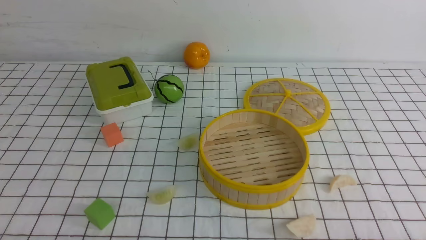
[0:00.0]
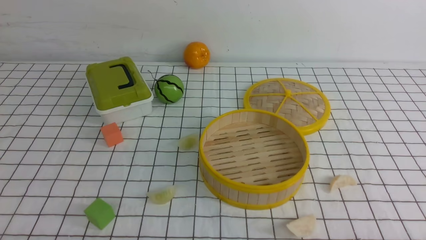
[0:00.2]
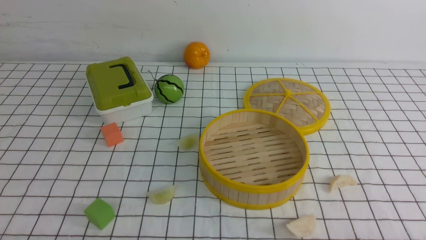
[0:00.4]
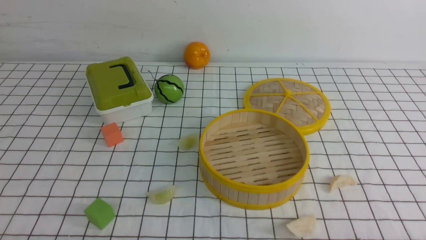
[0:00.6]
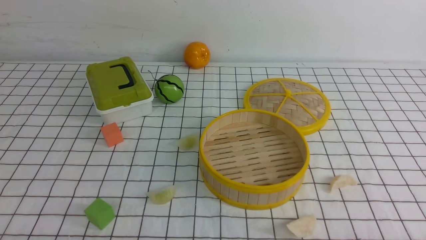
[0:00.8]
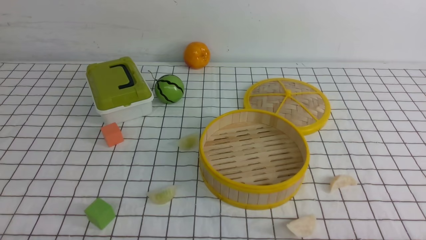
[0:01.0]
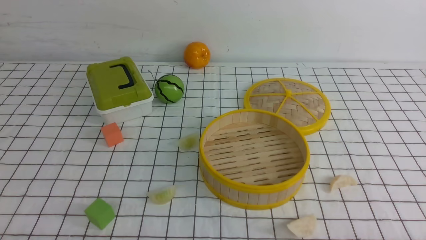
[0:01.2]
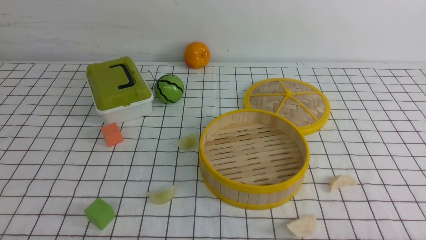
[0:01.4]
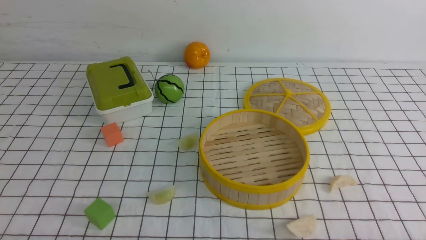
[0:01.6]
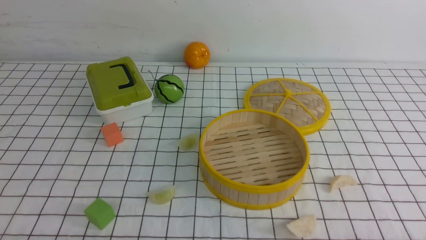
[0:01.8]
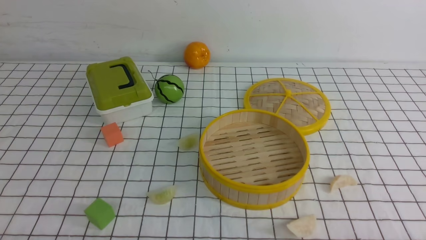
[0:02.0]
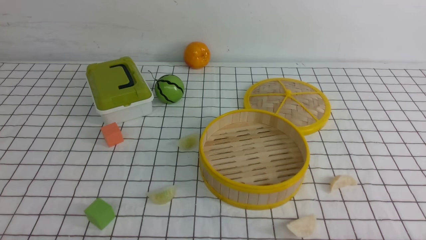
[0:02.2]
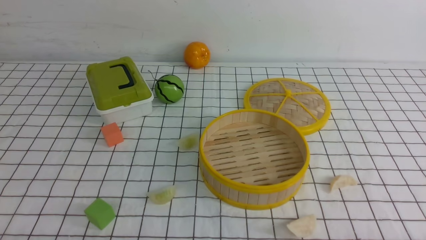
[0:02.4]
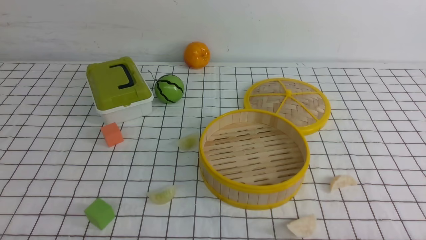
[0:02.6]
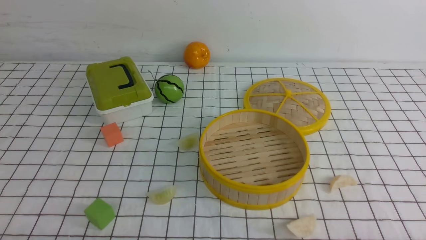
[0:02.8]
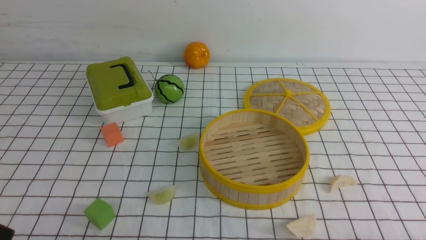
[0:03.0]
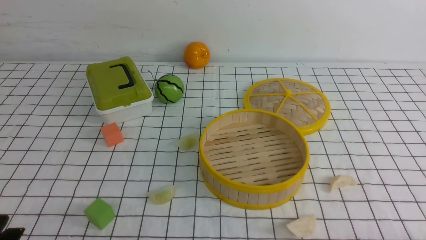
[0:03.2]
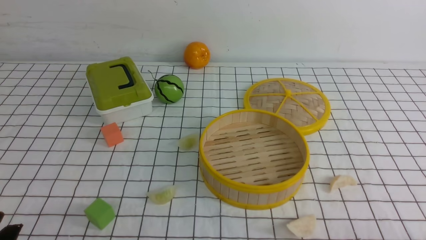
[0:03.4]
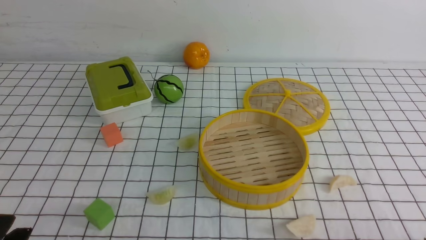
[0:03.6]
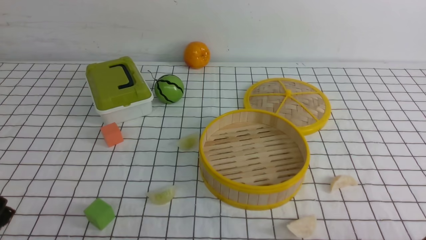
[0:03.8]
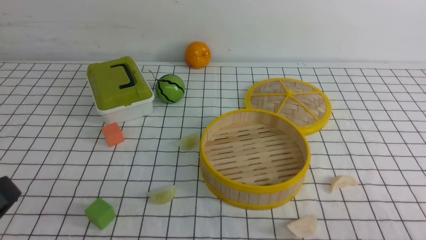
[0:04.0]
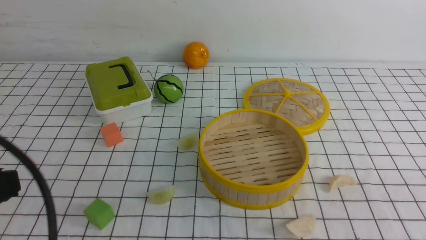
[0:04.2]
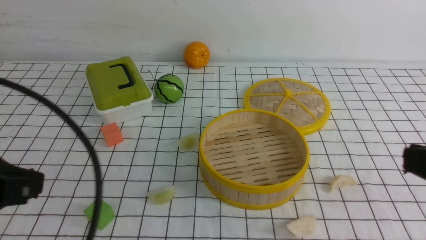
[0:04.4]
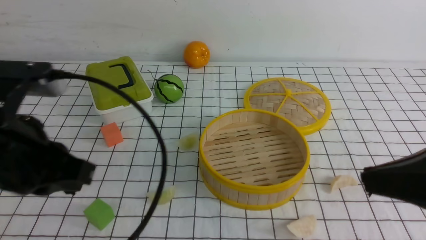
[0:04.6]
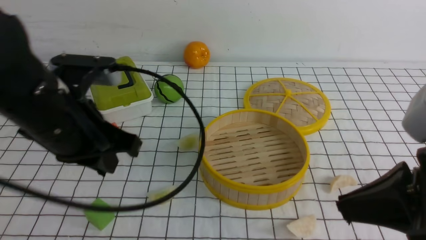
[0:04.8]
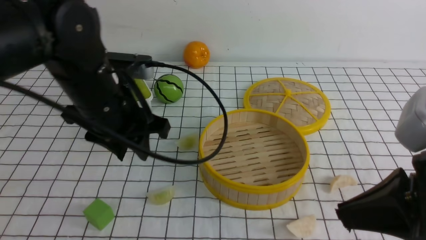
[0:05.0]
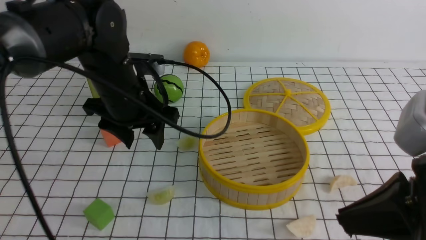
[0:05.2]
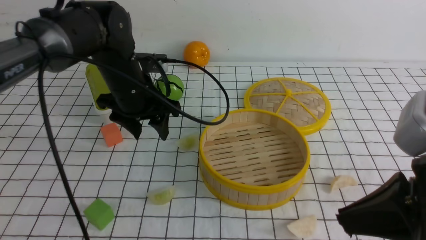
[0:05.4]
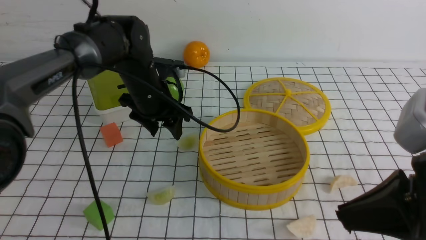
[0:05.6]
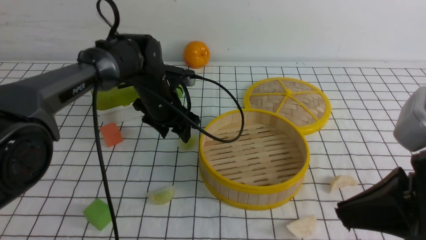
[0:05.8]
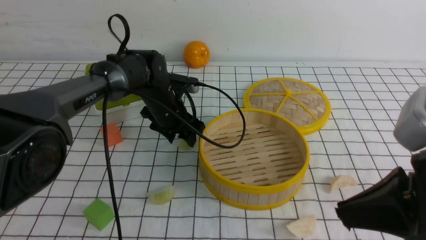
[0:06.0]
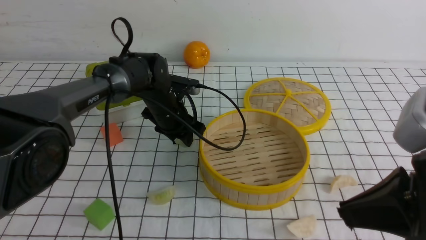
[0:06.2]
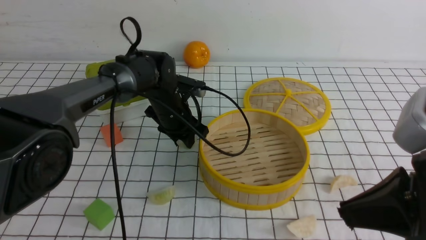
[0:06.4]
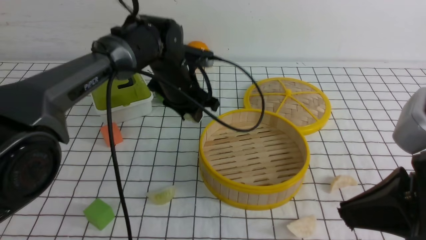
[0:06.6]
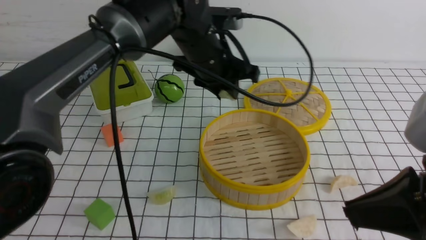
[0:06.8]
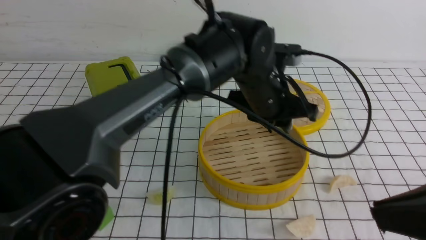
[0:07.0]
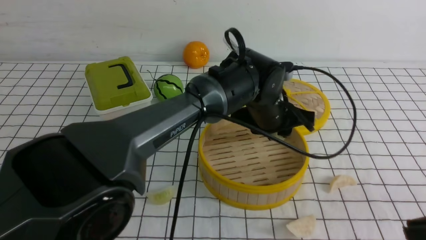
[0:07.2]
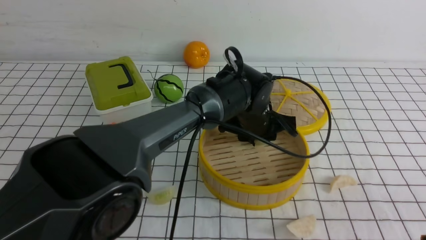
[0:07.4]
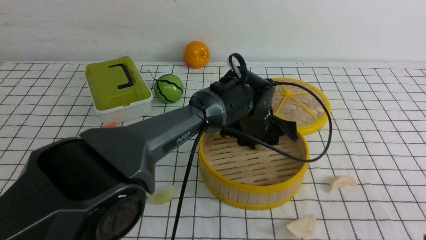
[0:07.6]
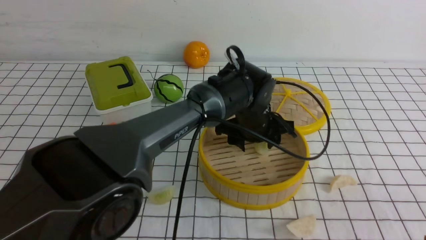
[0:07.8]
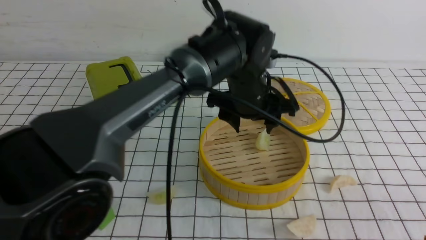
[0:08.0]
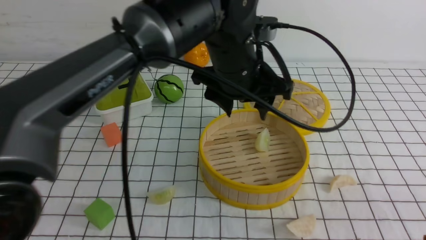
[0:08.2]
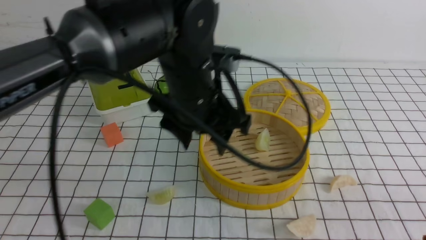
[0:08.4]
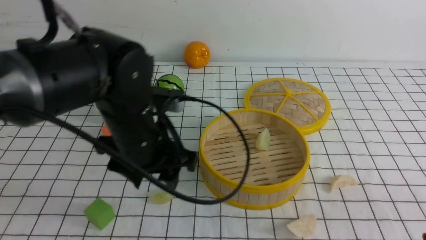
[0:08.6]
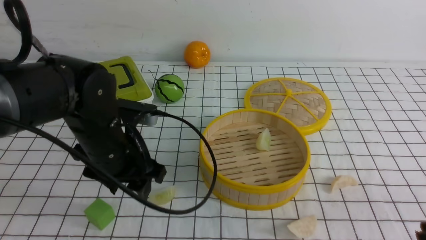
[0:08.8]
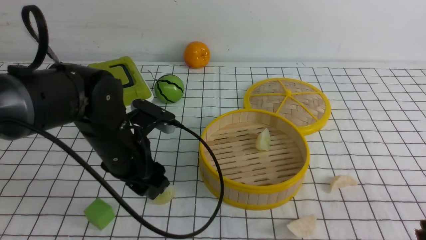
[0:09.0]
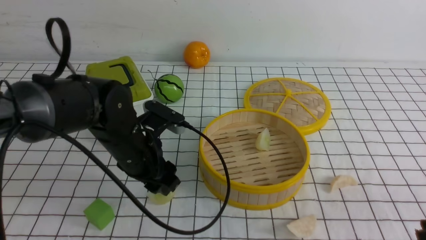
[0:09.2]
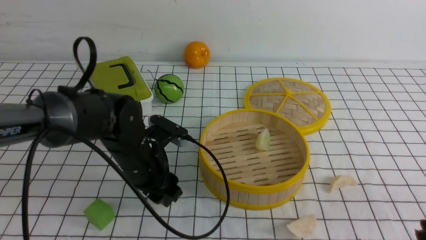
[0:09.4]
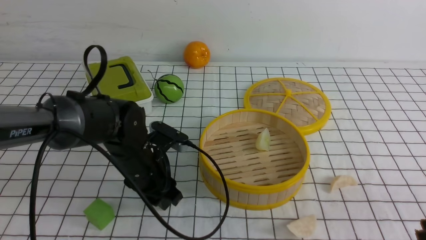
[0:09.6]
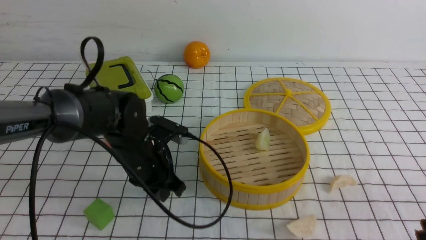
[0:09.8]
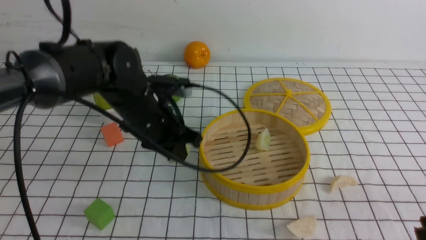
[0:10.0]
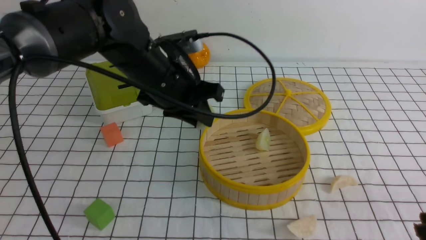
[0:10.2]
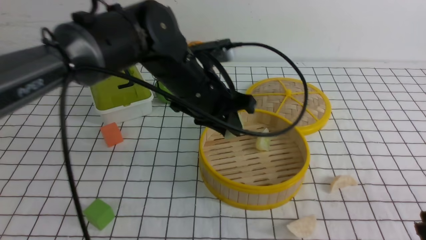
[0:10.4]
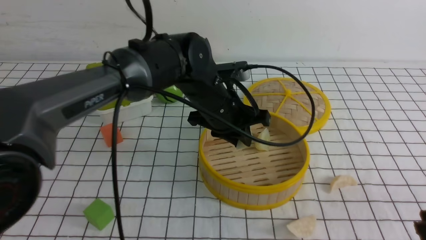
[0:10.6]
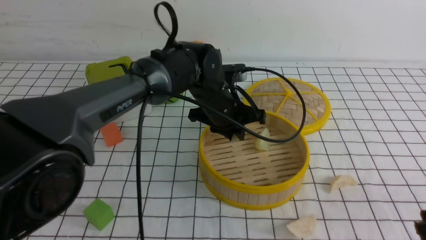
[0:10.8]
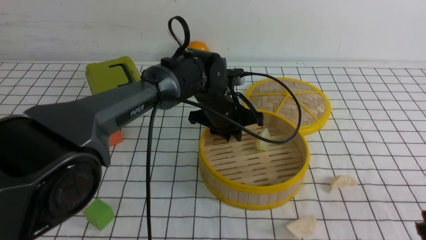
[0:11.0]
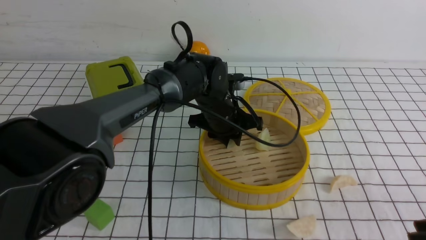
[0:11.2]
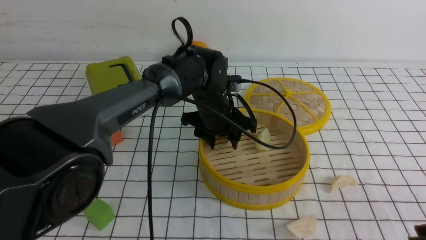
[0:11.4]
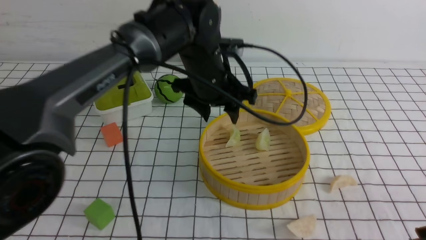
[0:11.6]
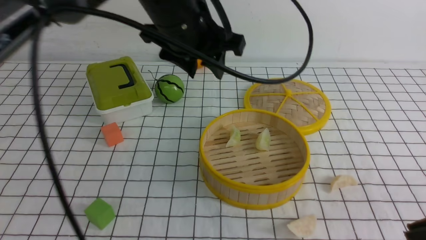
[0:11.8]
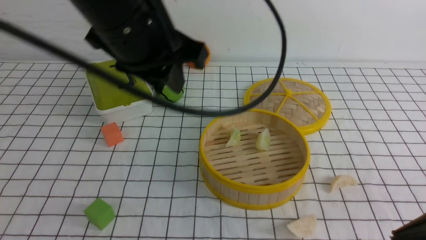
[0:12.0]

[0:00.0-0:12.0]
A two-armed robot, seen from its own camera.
Task of the whole recording: put the dumplings into the steamer on the table with the white tablecloth.
Step, 0:00.0 to 0:06.8: use the left arm to grab a dumpling.
Step, 0:07.0 to 0:08.2: use the left arm to put the dumpling into the steamer.
Step, 0:08.4 to 0:10.0: use the left arm to grab a dumpling.
Step, 0:10.2 to 0:11.6: use the left arm to put the dumpling into the steamer.
0:00.0 to 0:01.6: Neither gripper changes place.
0:03.0 to 0:04.4: The left gripper heads upward and forward, covering some 20 cm, and closes up; the right gripper shifts about 20 cm upward, and closes its fingers.
0:04.4 to 0:06.0: The left gripper is displaced forward and downward by approximately 35 cm, and opens up. Meanwhile the right gripper changes place by roughly 5 cm.
0:06.0 to 0:07.6: The right gripper moves backward, some 10 cm, while the left gripper moves to the right, roughly 15 cm.
0:07.6 to 0:09.0: The left gripper is displaced to the left and backward by some 25 cm.
0:09.0 to 0:10.4: The left gripper travels to the right, upward and forward by some 15 cm, and closes up.
0:10.4 to 0:12.0: The left gripper travels upward, backward and to the left by roughly 15 cm, and opens and closes again; the right gripper ends up about 5 cm from where it was.

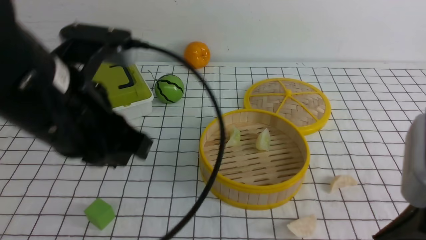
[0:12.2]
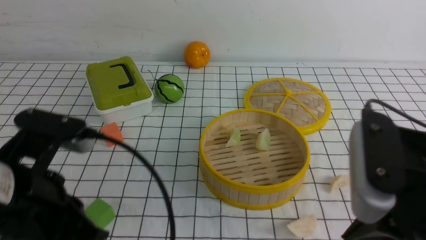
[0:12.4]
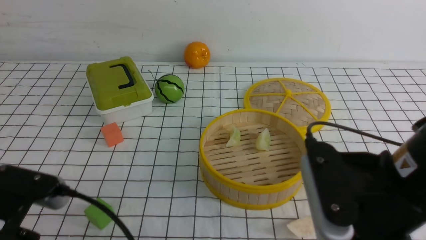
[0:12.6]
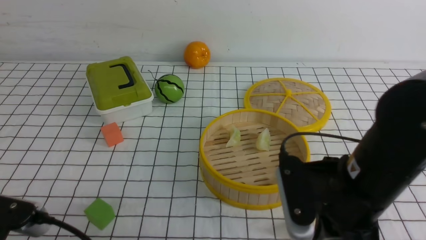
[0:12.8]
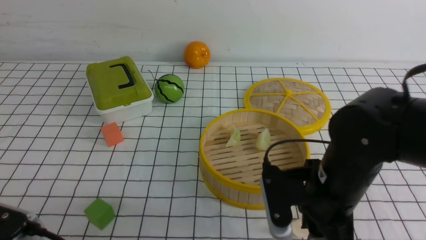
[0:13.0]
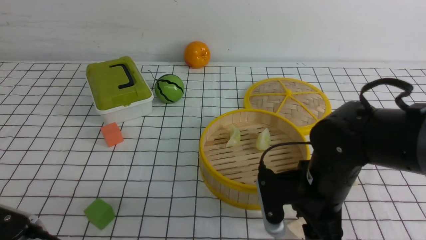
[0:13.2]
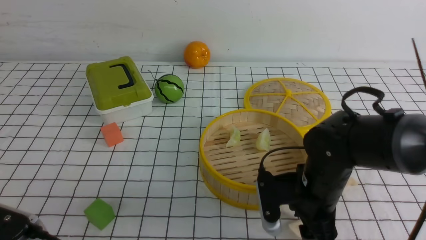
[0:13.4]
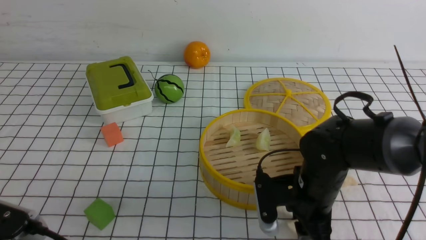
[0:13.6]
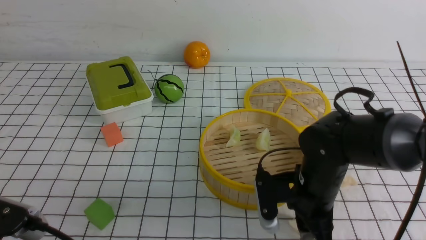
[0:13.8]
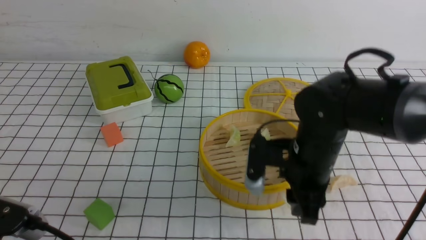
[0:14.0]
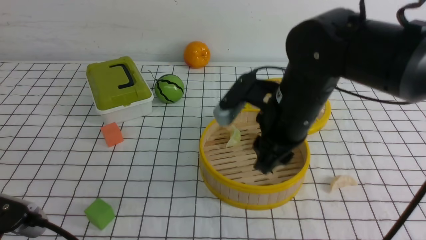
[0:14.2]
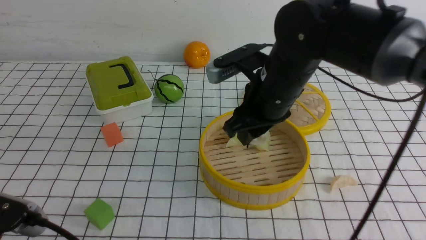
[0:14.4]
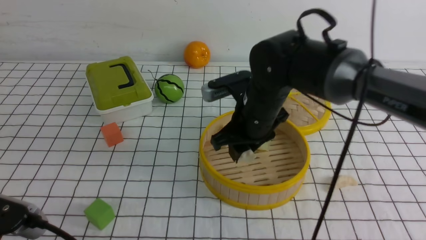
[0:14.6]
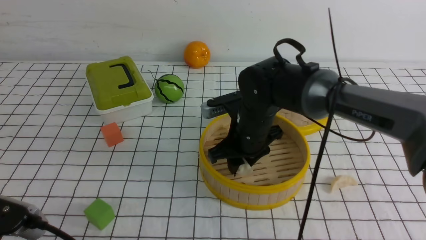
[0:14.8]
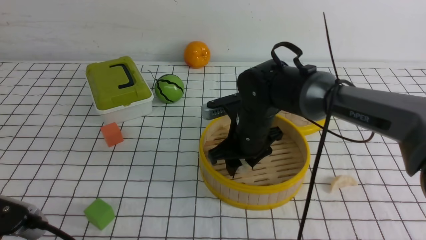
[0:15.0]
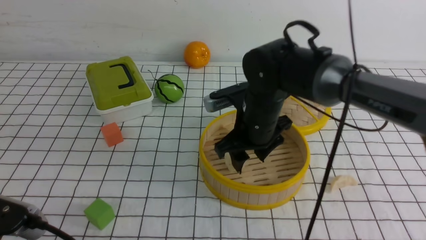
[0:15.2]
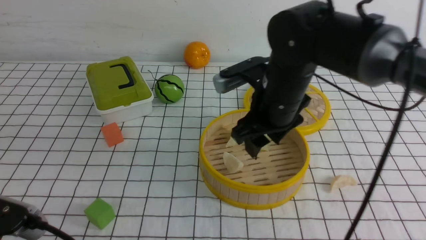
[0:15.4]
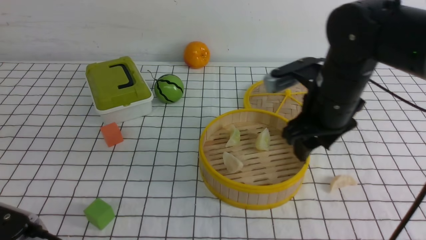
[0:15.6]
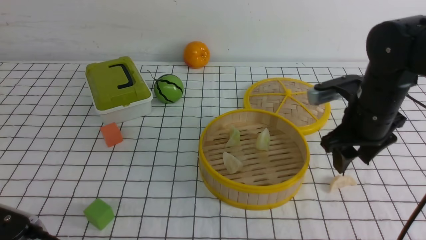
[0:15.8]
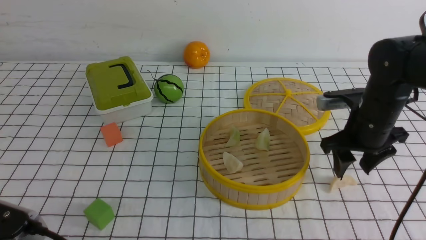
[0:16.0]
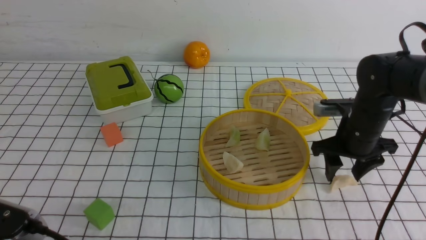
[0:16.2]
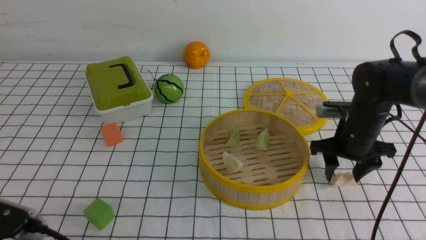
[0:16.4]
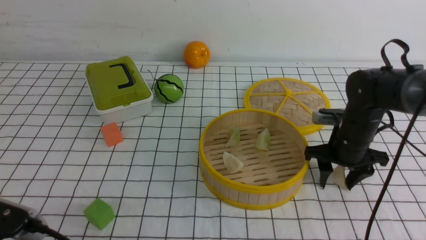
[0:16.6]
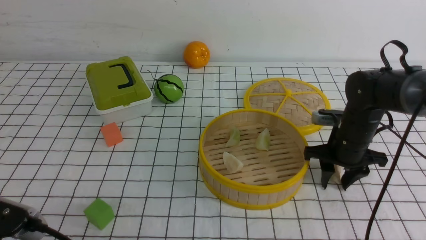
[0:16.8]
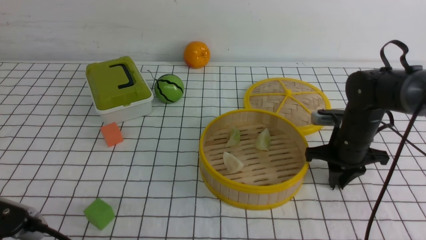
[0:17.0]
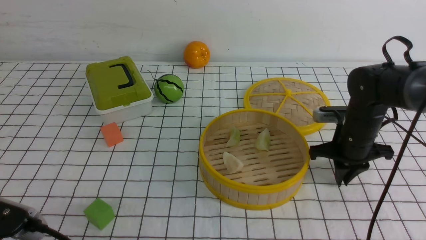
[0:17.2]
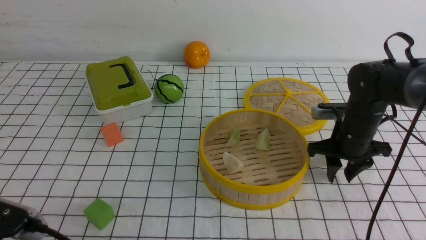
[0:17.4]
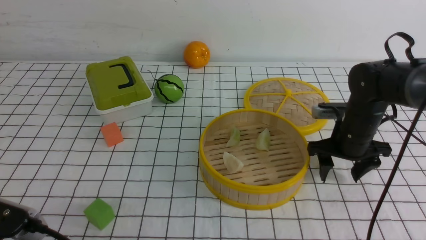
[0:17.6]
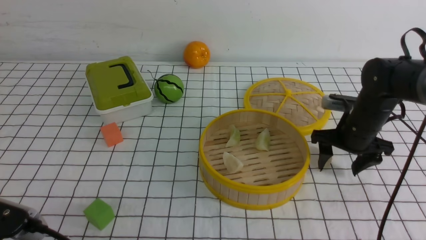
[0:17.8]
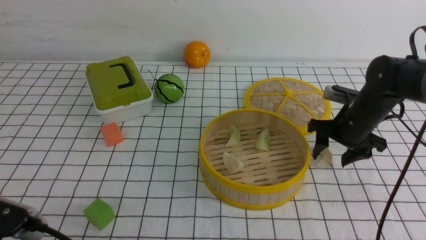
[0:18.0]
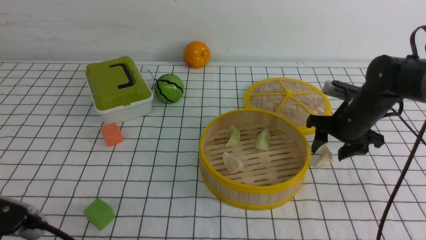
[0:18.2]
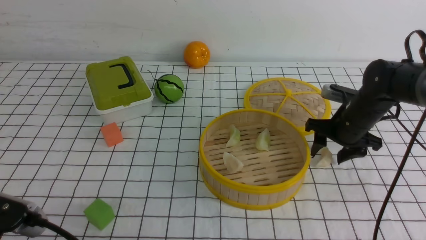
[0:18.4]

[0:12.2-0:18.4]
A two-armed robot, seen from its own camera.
Task of the whole recording: put the dumplings into the steamer on the table with the white tablecloth.
Step, 0:12.2 to 0:14.0: use the right arm to grab a dumpling.
Step, 0:14.2 to 0:15.4: use the right arm to put the dumpling into the steamer.
0:12.2 to 0:13.8: The left gripper heads backward, downward and to the left, covering some 15 cm. Meanwhile the right gripper moves downward, forward and to the left, approximately 25 cm, and opens up.
0:13.8 to 0:15.4: The right gripper swings up and down, approximately 10 cm each way, with 2 reversals.
0:15.4 to 0:16.8: The right gripper heads to the right and downward, covering roughly 15 cm.
0:16.8 to 0:18.4: The grippers make only small movements.
